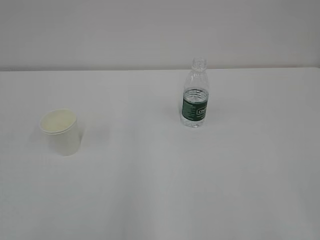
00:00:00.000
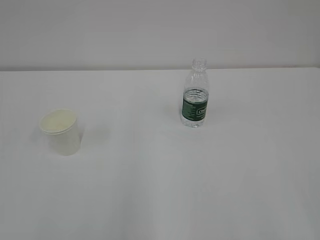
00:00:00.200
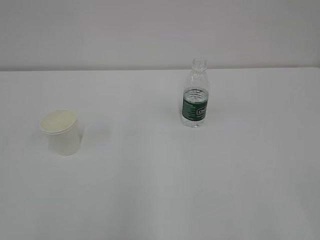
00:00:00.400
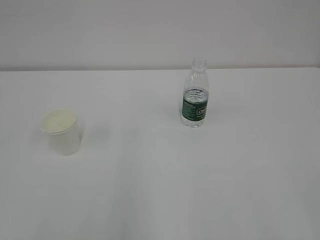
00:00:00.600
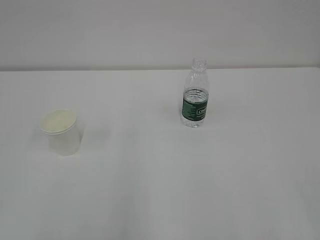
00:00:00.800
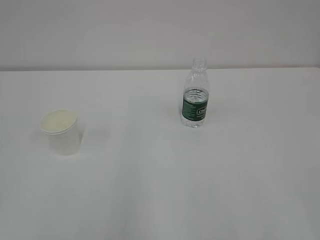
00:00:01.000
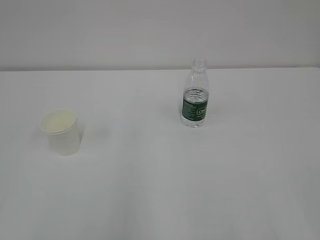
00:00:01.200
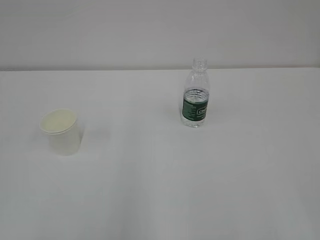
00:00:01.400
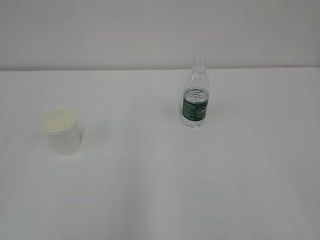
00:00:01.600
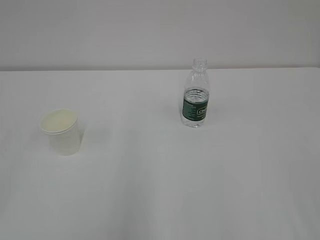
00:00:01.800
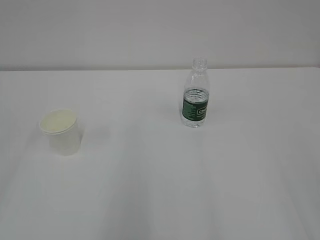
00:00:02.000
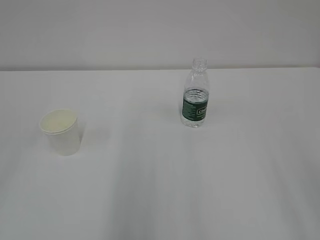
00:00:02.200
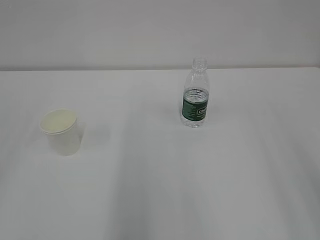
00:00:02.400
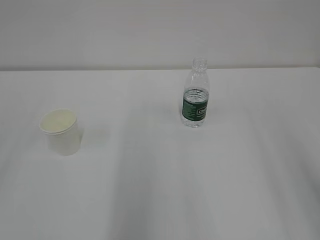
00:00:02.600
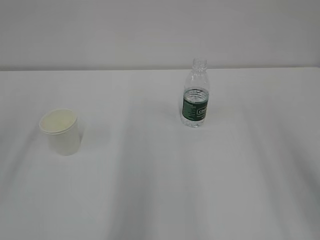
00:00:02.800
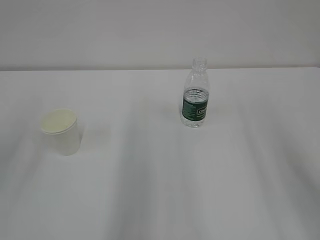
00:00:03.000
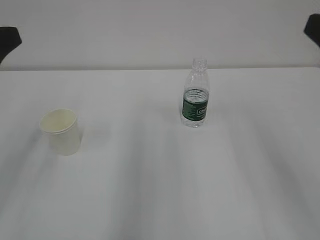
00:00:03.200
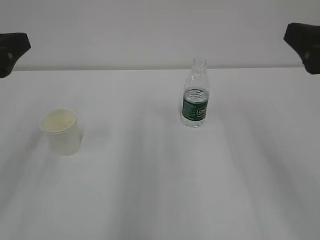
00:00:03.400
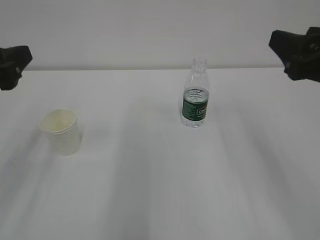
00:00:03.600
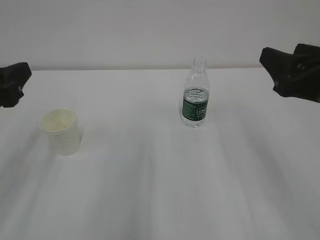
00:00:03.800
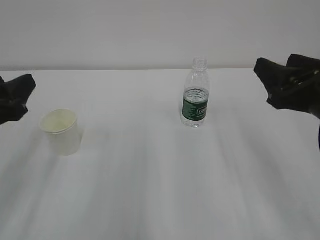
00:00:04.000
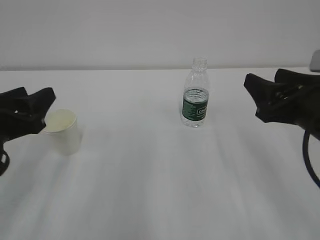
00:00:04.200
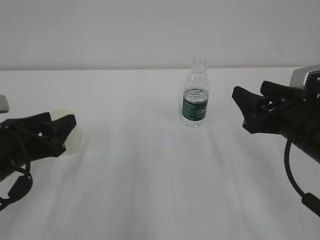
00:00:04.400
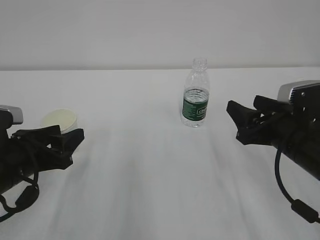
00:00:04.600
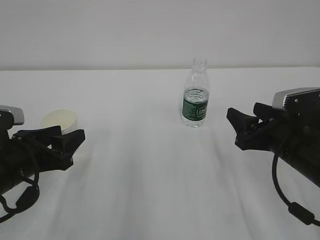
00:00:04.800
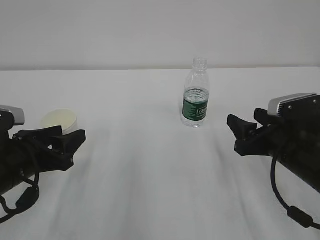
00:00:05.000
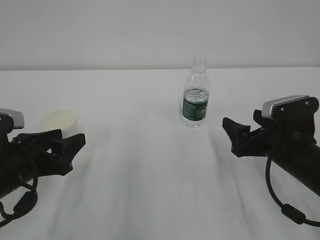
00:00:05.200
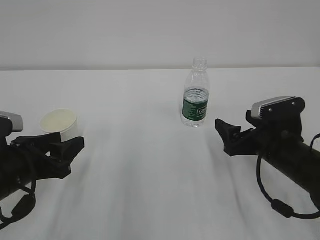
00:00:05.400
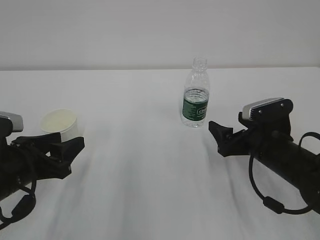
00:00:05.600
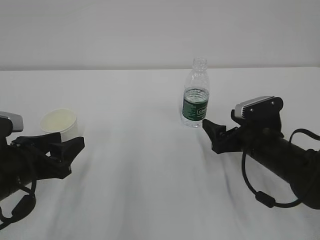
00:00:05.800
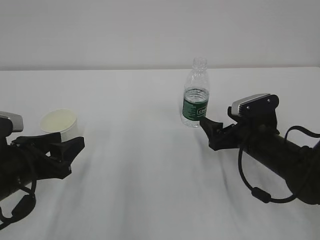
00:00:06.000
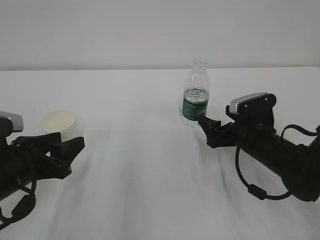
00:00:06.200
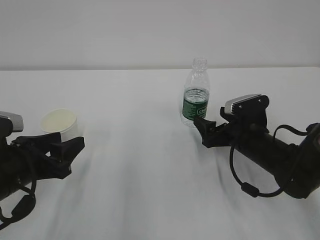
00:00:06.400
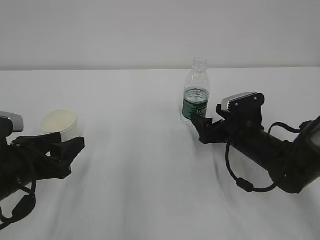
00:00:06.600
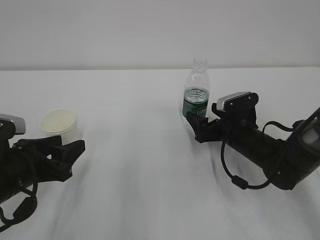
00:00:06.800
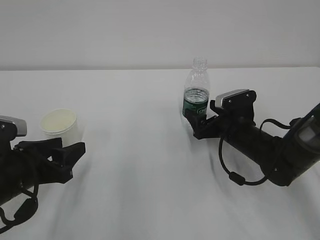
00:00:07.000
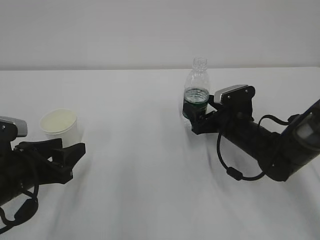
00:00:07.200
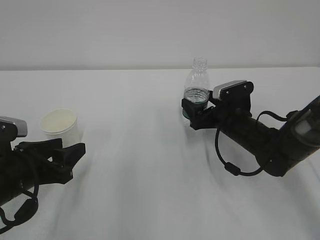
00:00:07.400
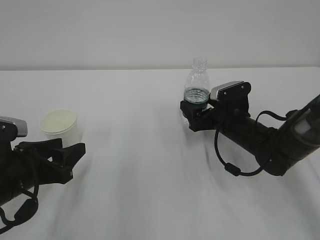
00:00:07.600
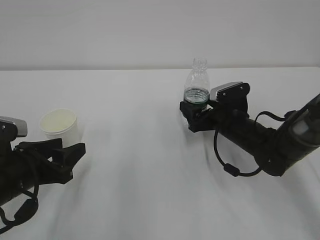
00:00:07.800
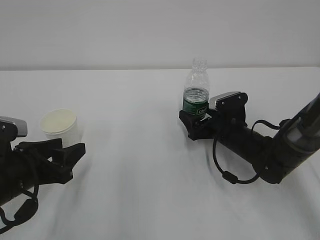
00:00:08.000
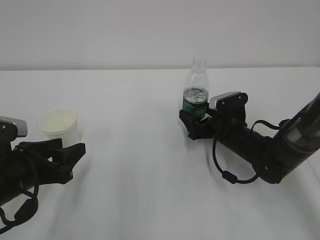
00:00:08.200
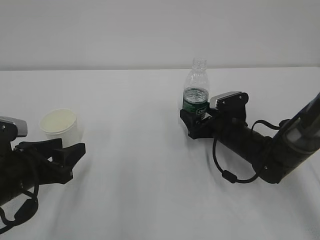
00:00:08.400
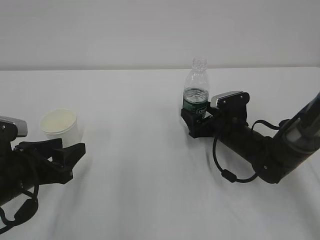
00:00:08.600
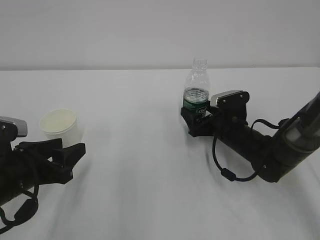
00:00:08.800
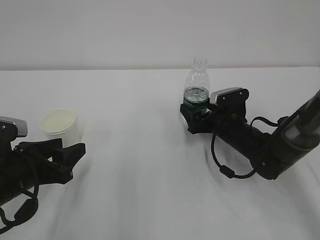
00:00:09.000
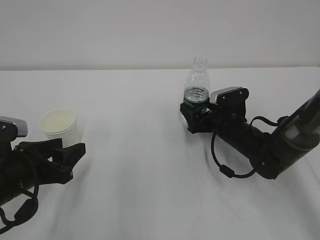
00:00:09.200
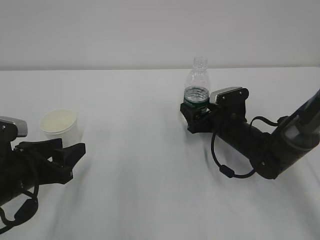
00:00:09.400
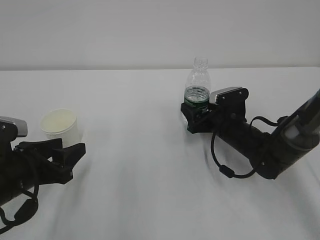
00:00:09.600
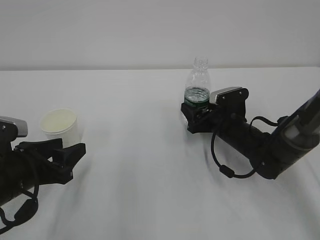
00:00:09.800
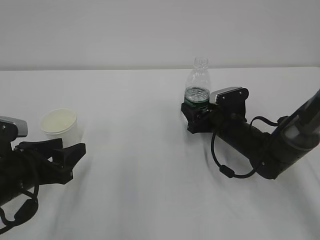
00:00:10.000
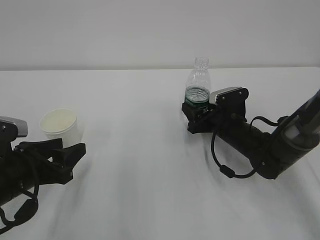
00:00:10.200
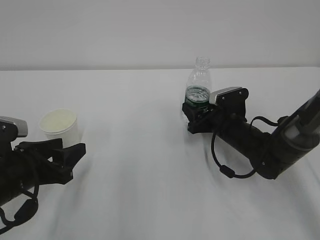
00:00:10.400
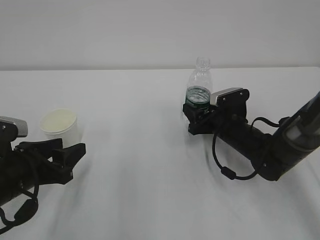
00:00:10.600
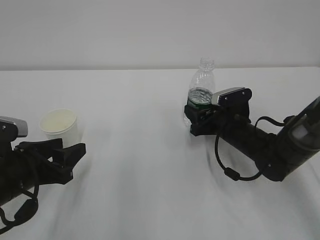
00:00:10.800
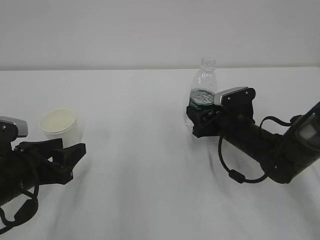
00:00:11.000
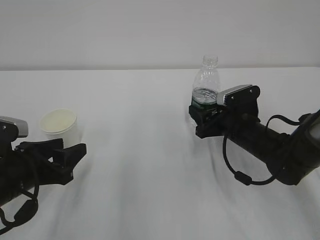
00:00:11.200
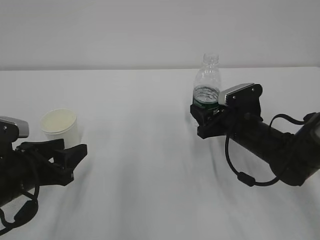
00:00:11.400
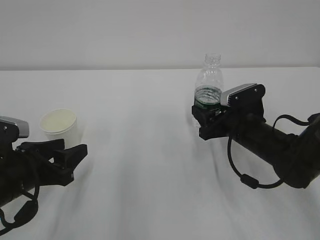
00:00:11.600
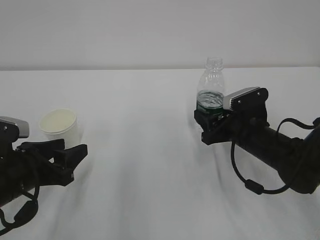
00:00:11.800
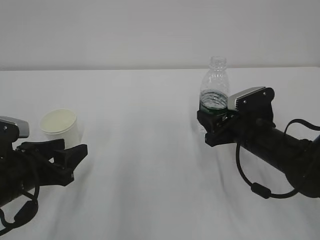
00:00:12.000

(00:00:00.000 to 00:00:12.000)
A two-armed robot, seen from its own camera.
00:00:03.000 - 00:00:04.400: The left gripper moves downward, some 20 cm. Meanwhile the right gripper shifts roughly 20 cm downward and forward.
00:00:04.400 - 00:00:06.000: The right gripper is displaced downward and forward by about 10 cm, and opens its fingers.
00:00:06.000 - 00:00:07.600: The right gripper heads forward, covering roughly 5 cm.
00:00:07.600 - 00:00:09.000: The grippers move only a little.
00:00:10.400 - 00:00:12.000: The right gripper shifts approximately 5 cm backward.

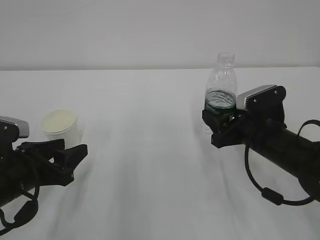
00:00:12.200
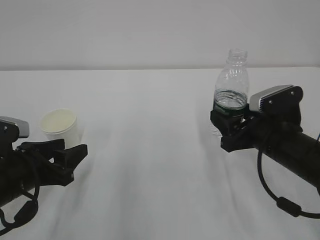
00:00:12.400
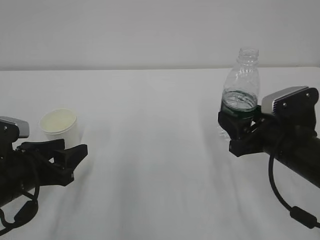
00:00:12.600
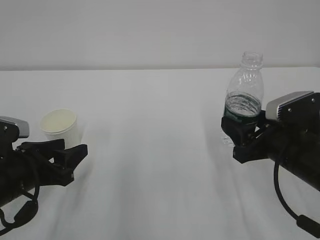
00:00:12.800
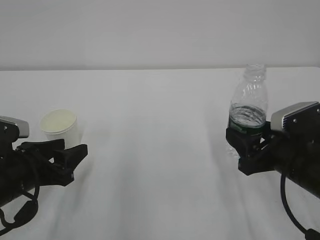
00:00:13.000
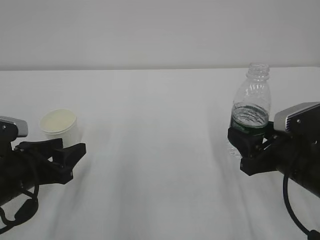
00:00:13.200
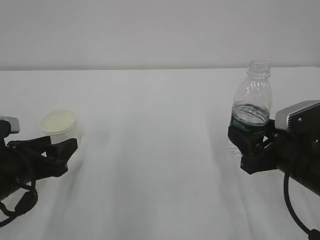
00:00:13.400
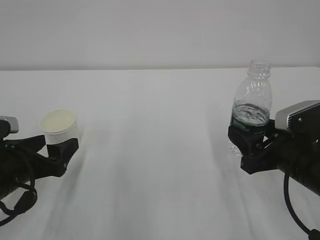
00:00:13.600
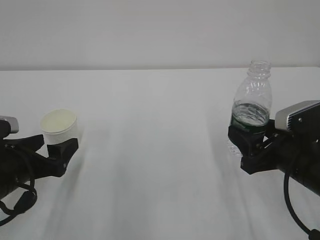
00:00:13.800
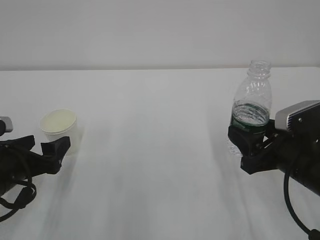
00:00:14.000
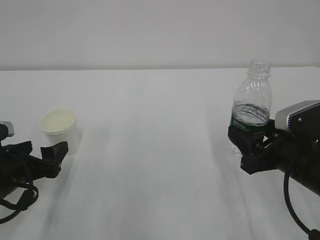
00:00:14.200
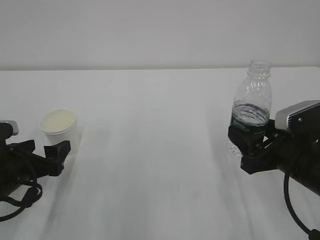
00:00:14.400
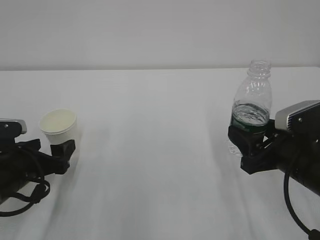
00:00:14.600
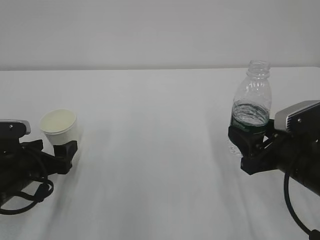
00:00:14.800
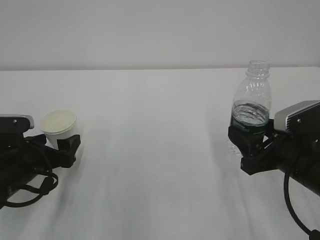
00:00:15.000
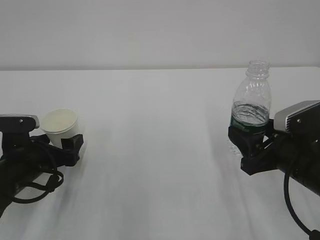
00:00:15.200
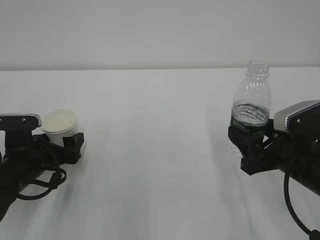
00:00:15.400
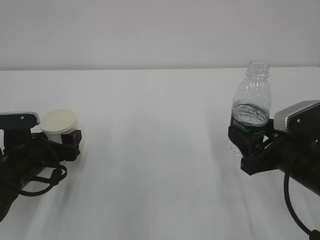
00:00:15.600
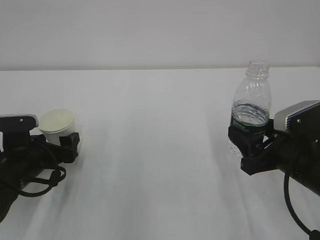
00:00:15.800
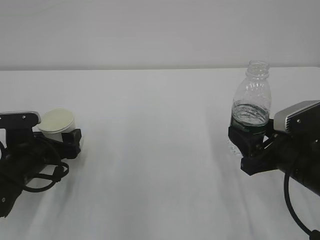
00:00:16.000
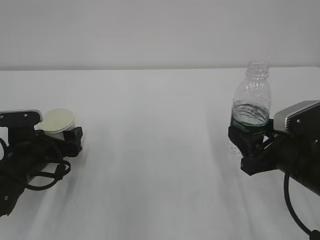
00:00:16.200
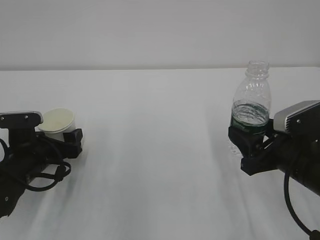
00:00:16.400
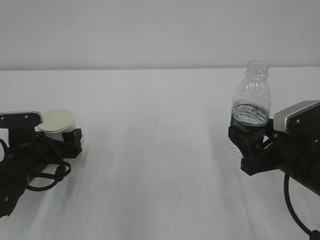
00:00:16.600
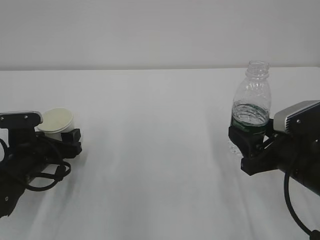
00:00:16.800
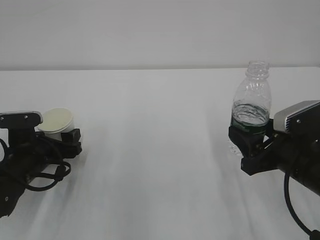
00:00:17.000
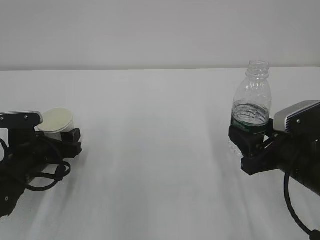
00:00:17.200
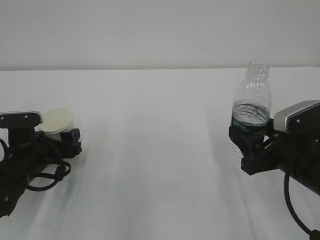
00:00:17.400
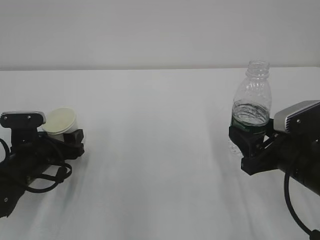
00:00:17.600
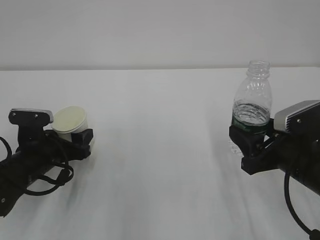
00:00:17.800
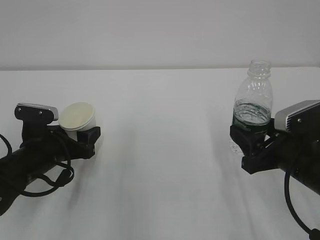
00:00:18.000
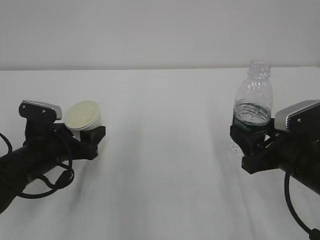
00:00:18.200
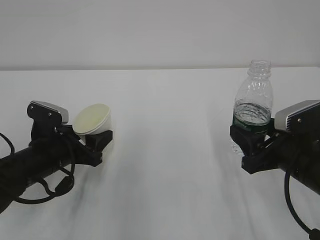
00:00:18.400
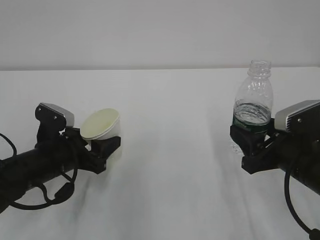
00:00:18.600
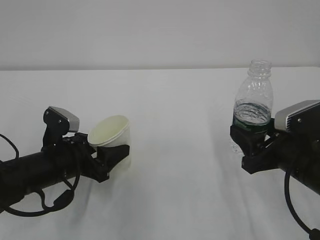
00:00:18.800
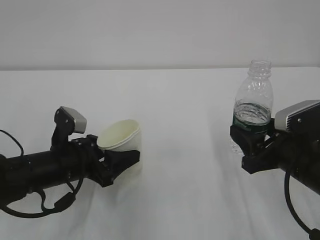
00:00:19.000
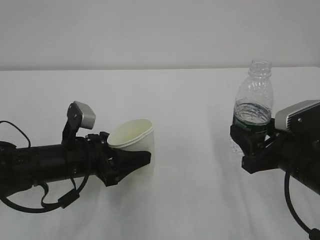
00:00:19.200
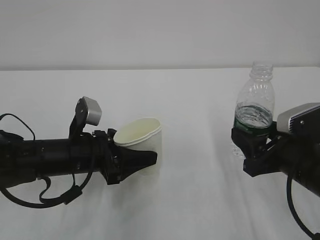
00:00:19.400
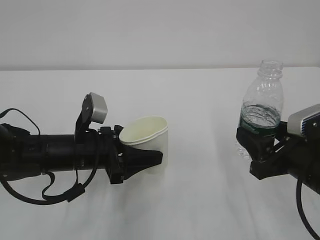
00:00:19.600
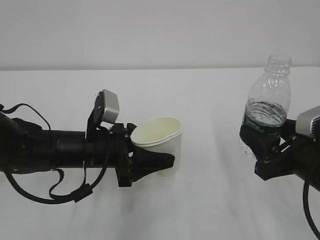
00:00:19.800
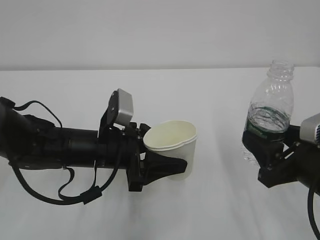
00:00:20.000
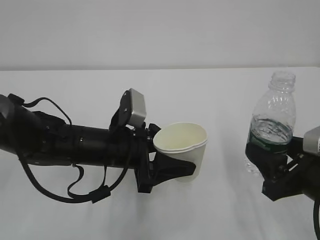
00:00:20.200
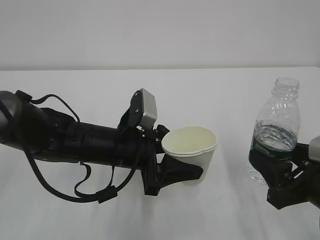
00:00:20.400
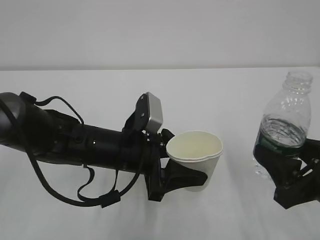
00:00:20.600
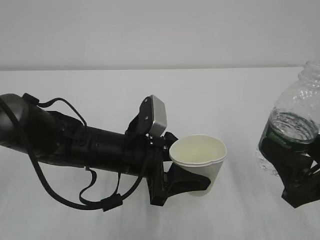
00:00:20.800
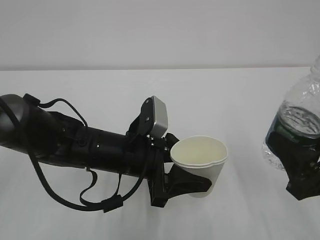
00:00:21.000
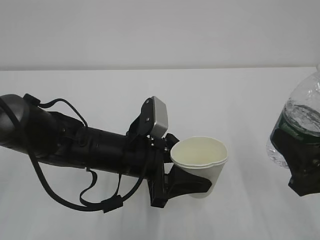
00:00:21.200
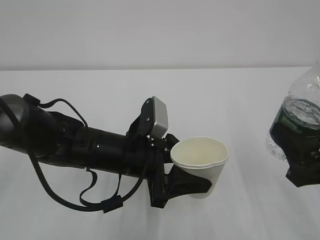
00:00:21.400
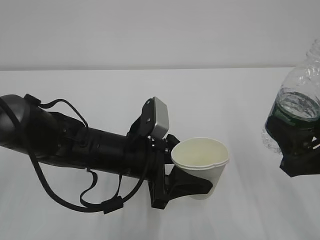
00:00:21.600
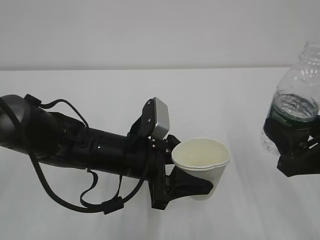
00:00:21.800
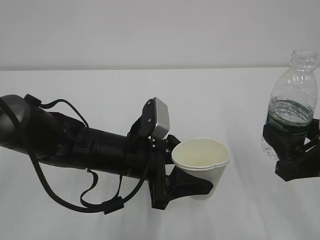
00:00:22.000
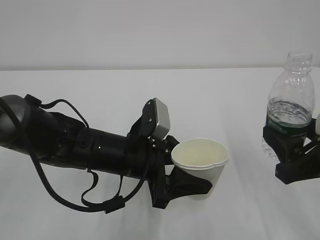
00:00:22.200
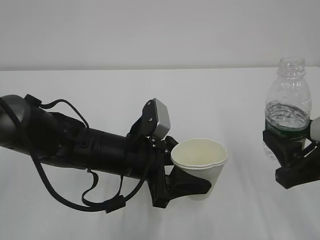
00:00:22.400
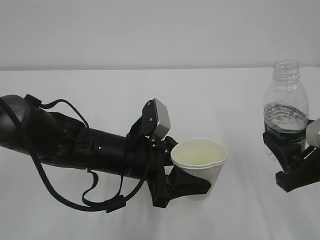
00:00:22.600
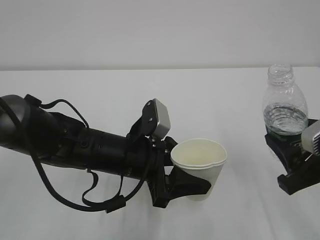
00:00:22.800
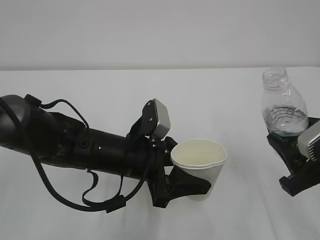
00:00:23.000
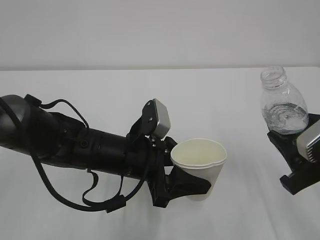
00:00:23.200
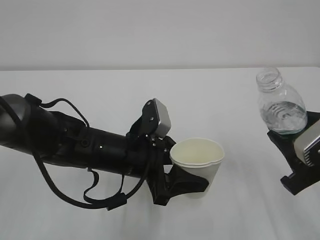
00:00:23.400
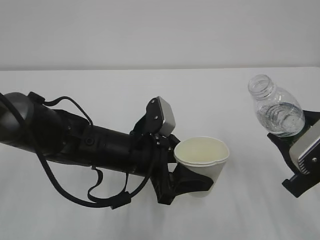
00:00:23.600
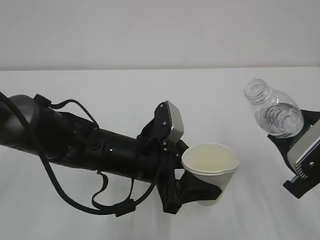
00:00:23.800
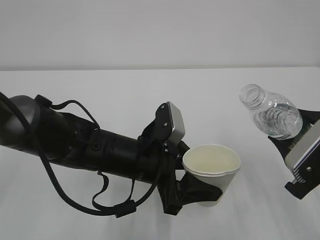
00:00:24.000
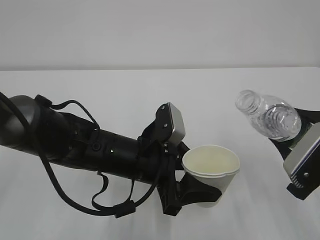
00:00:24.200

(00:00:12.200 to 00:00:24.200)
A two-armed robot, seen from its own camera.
00:00:12.200 - 00:00:13.800: The right gripper moves backward, roughly 10 cm; the left gripper opens its fingers.
00:00:13.800 - 00:00:15.200: The left gripper changes place by some 5 cm.
00:00:15.200 - 00:00:16.600: The grippers move only a little.
00:00:16.600 - 00:00:18.200: The left gripper closes its fingers.
00:00:18.200 - 00:00:19.800: The left gripper goes some 10 cm to the right.
00:00:19.800 - 00:00:21.200: The left gripper is displaced to the right by about 5 cm. Meanwhile the right gripper shifts by some 5 cm.
00:00:21.200 - 00:00:22.600: The grippers move only a little.
